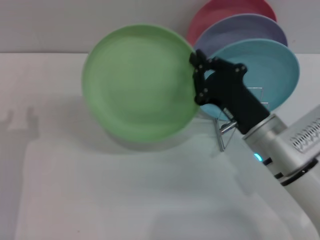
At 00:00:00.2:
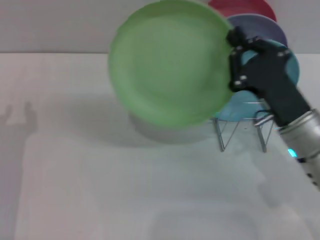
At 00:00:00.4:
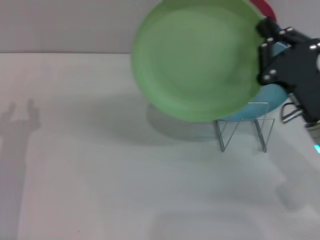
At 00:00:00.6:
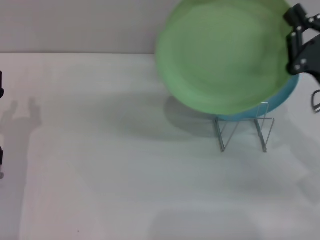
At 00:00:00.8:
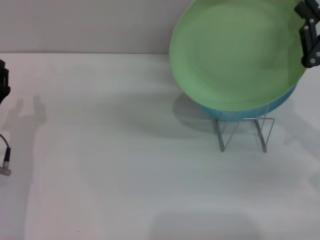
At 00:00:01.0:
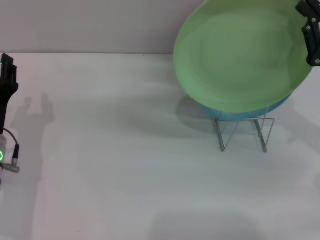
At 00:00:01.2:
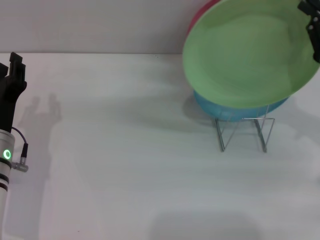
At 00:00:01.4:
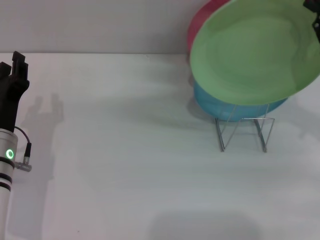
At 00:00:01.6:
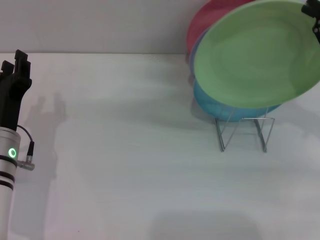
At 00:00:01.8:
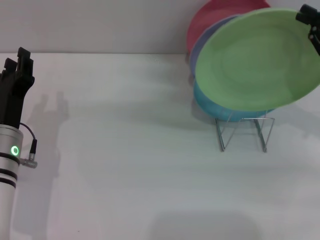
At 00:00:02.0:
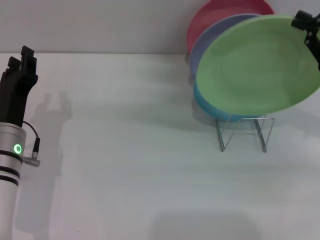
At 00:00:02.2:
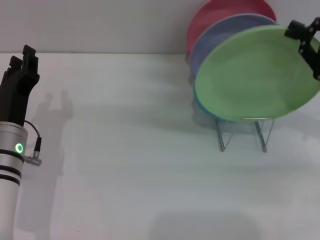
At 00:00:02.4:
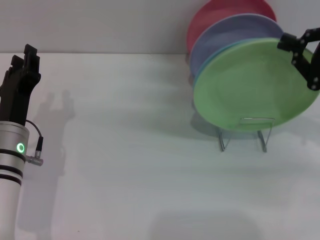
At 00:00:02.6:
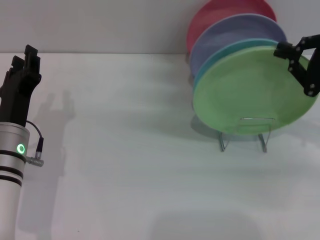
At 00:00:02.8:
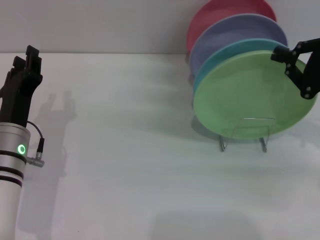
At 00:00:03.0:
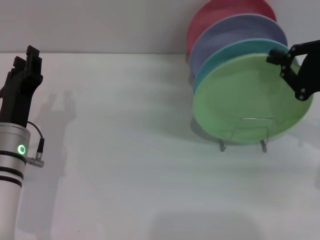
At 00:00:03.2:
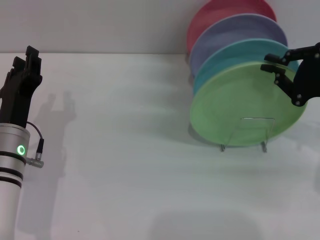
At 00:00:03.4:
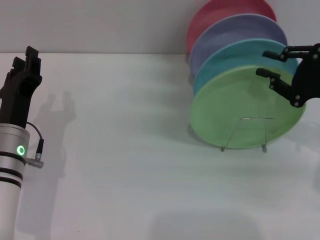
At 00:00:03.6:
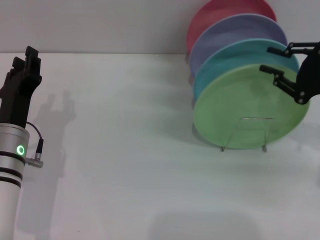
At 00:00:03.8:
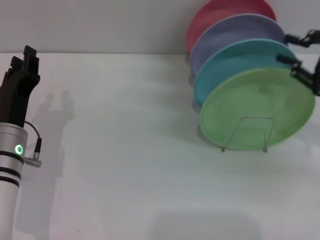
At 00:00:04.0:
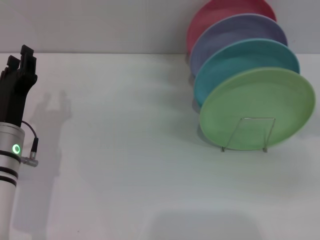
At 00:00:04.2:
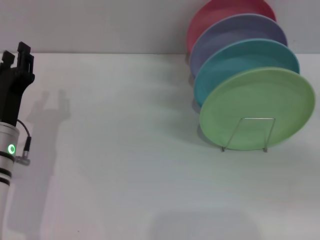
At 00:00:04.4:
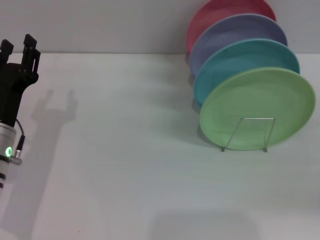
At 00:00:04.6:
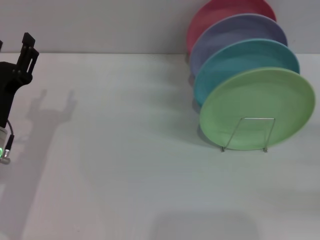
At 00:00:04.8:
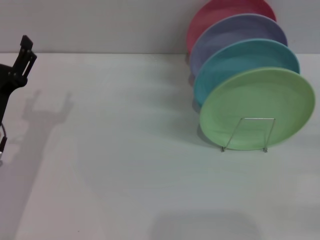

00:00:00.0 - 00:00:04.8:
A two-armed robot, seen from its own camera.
Task of the whole recording: Grip the plate with one hand, pass it to the other, then set it on the shelf.
Step, 00:00:00.2 - 00:00:03.2: Place the plate on the shelf with the right gripper.
00:00:00.0 - 00:00:01.6: The right gripper travels to the right and upward by roughly 20 cm; the left gripper moves roughly 5 cm.
00:00:01.6 - 00:00:03.2: The grippers stay close to where they were, moving slightly.
00:00:03.2 - 00:00:04.8: The right gripper is displaced backward, to the right and downward by approximately 15 cm, and opens its fingers.
